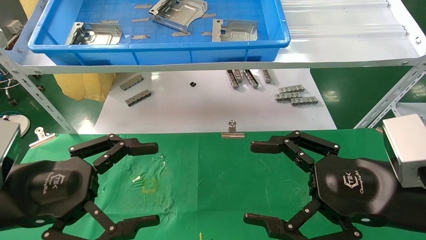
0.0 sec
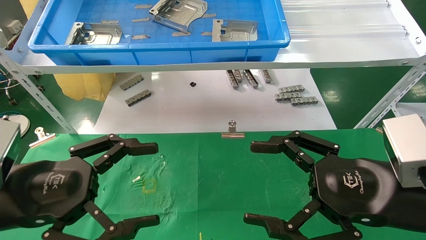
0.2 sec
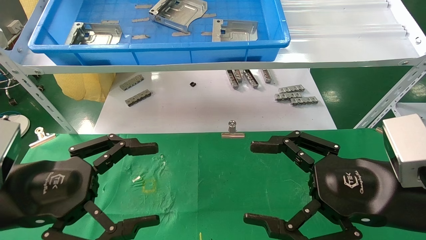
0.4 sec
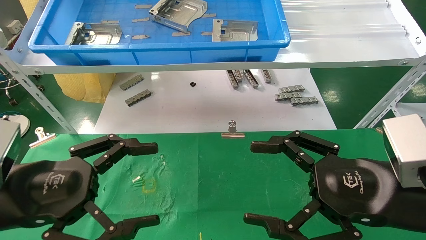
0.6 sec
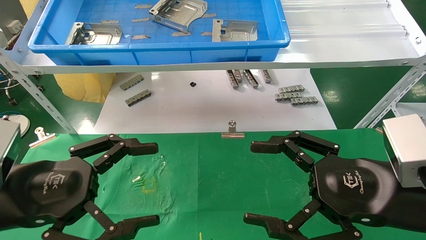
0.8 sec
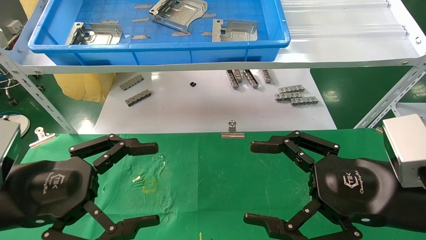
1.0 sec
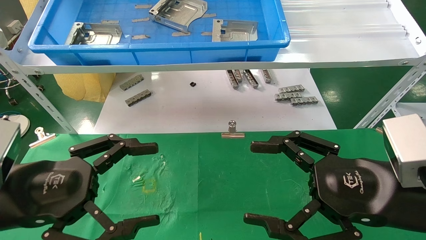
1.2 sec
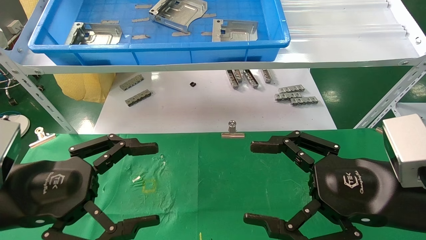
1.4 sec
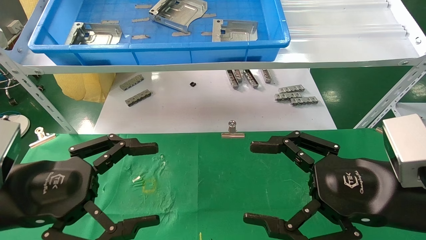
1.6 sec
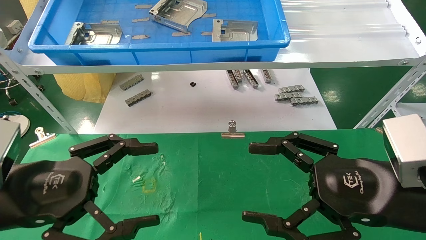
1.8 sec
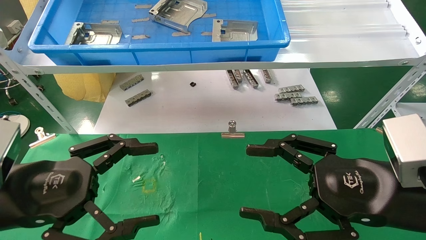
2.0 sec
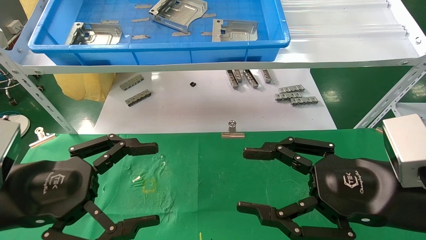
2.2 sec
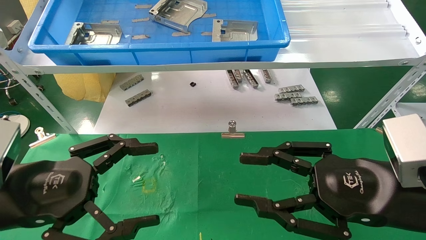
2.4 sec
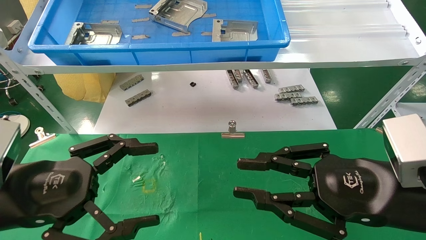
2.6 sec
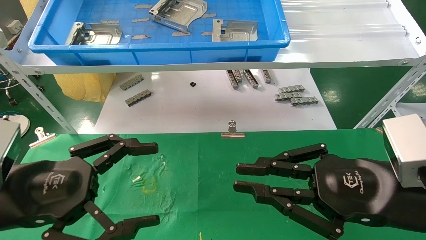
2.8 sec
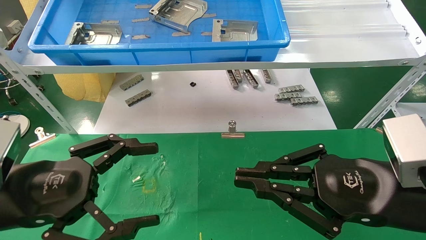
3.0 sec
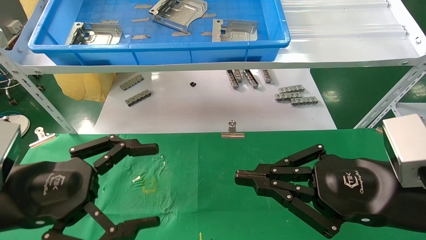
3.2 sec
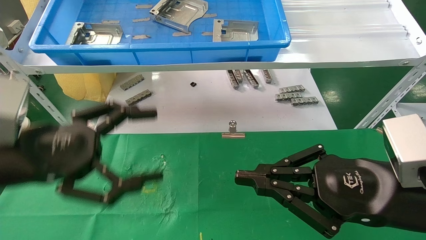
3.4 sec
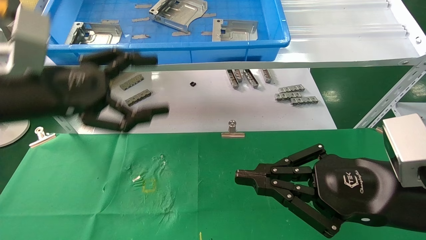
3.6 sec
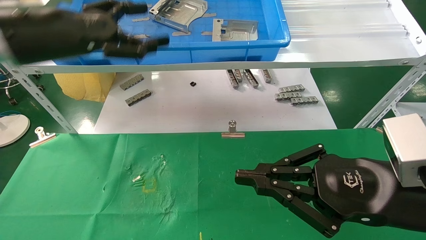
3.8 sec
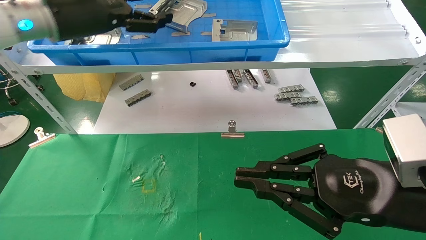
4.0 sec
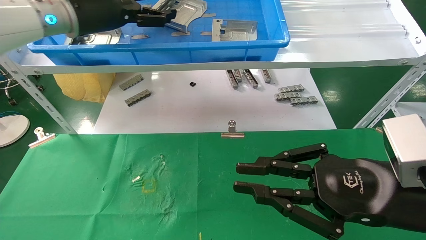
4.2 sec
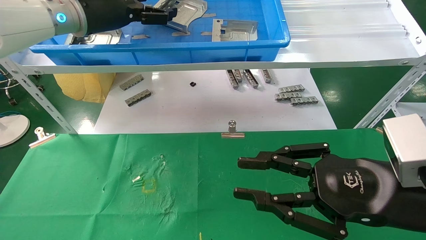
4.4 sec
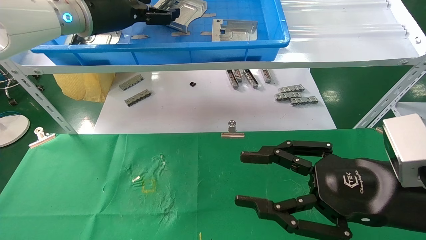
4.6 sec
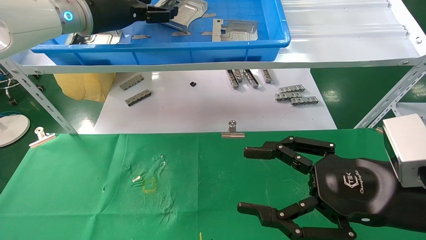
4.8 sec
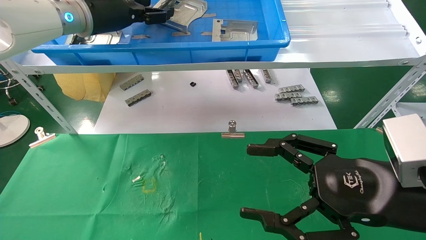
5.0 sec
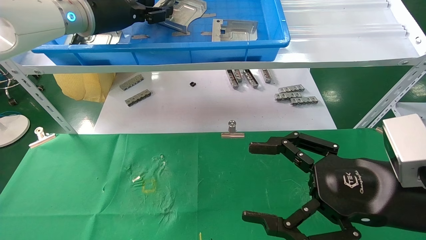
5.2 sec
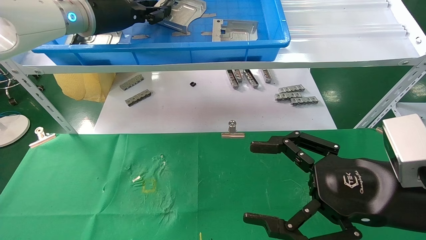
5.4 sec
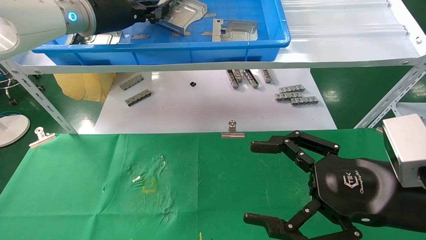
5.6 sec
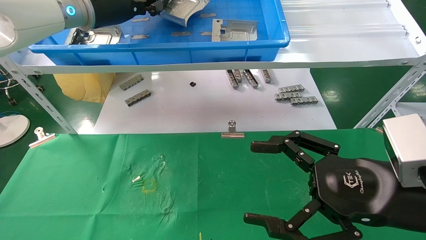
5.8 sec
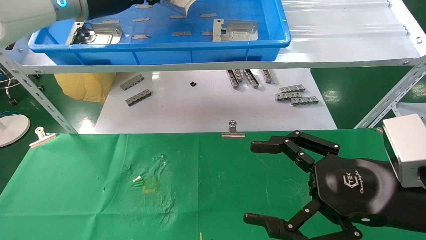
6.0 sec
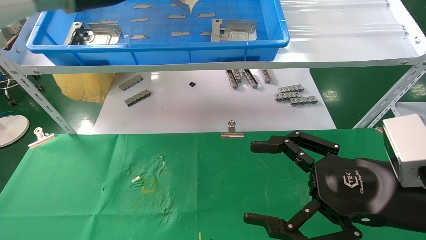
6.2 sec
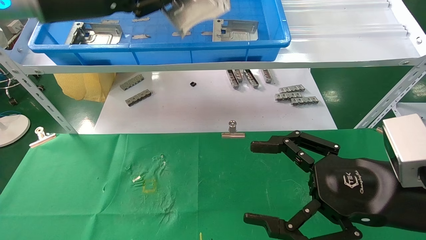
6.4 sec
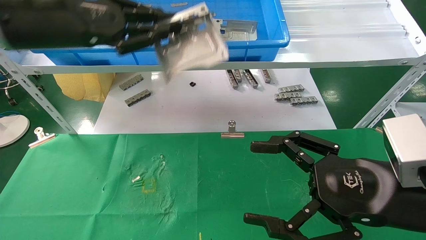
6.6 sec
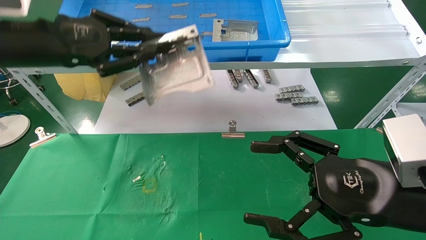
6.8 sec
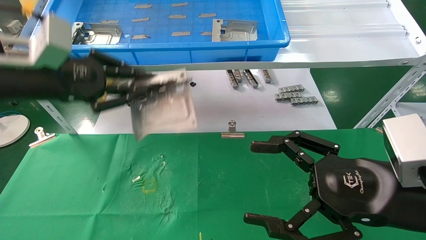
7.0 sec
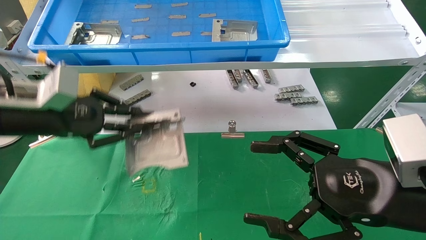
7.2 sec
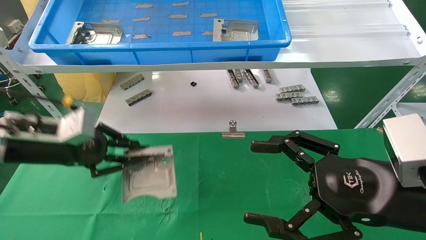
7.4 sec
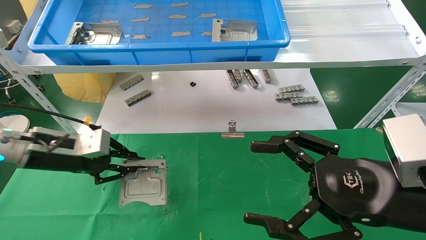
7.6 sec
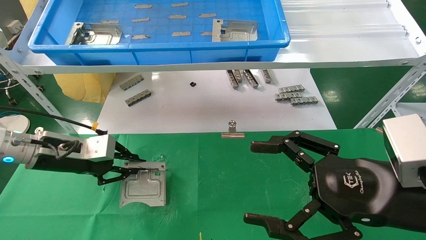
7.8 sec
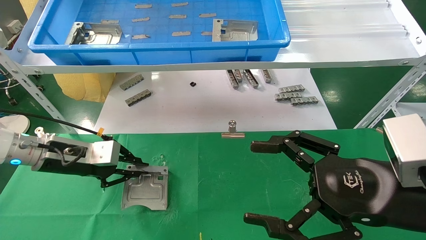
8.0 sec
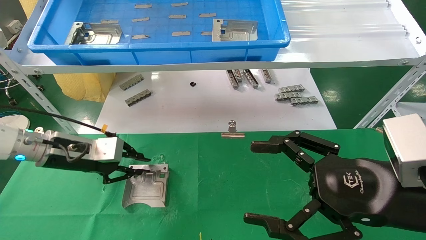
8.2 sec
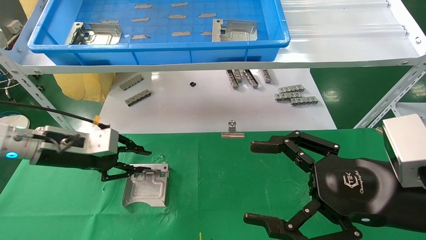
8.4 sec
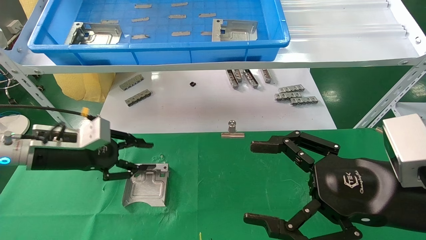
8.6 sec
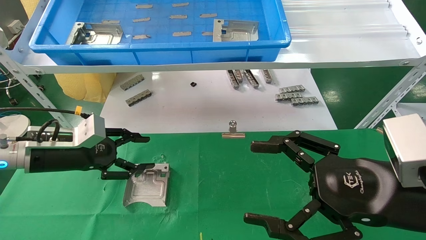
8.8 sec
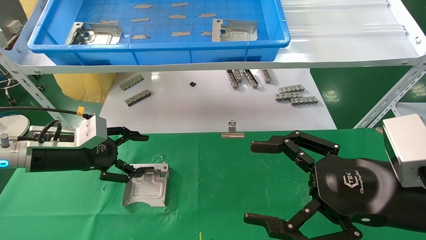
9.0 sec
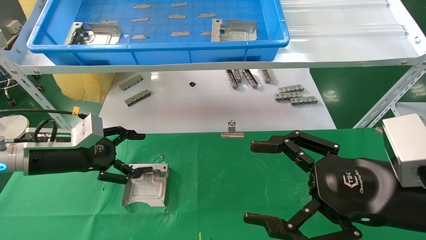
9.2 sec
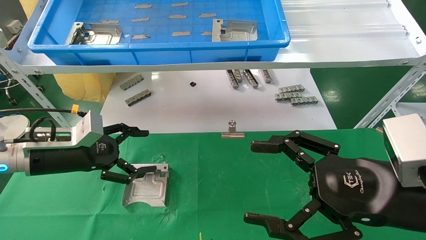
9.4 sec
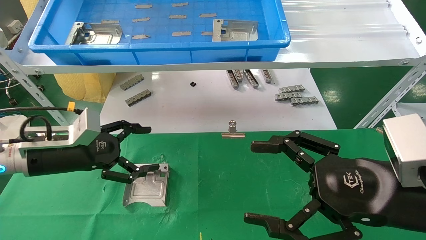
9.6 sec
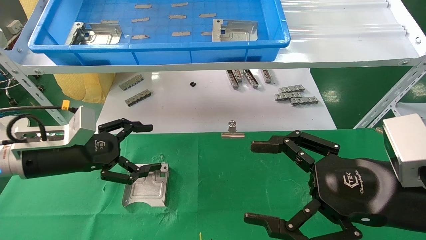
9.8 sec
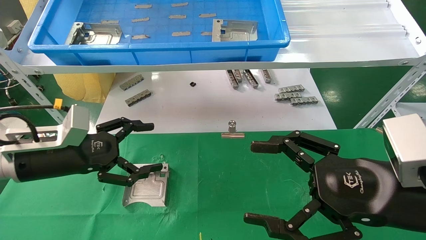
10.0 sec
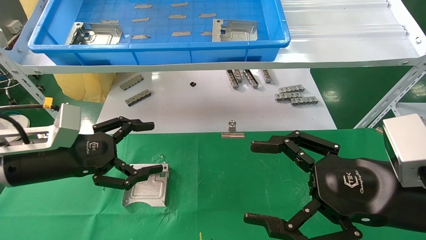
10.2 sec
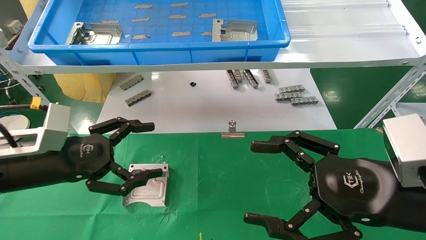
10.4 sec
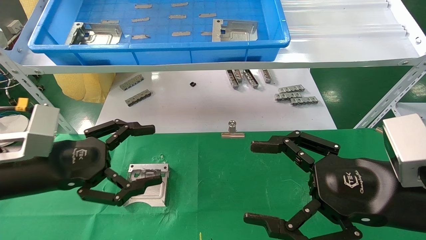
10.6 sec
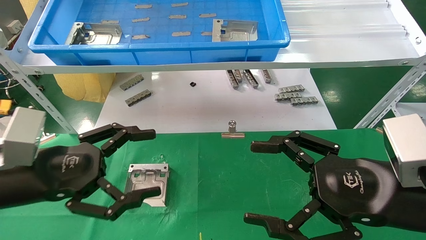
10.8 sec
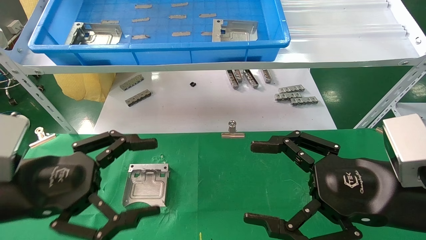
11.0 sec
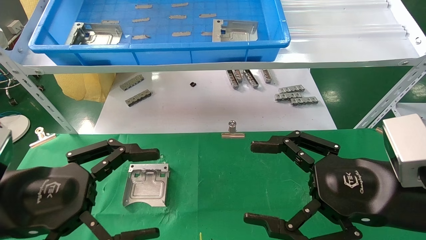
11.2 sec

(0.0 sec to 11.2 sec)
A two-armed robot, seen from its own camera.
Task of the whole recording: use the mechanical arm to pick up the parts and place them on the table.
Step, 3.6 sec - 5.6 sec: Pick up the hard drive bracket from the feeding area.
Step, 5.8 sec - 8.2 sec: Place the hard drive bracket into the box.
0.0 sec - 1.6 sec: Neither gripper changes place.
1.6 sec - 3.2 sec: The right gripper closes its fingers.
3.2 sec - 4.8 sec: The right gripper opens up. The left gripper goes approximately 30 cm forward and upward.
4.8 sec - 6.4 sec: The right gripper opens. Meanwhile the left gripper heads backward, covering roughly 10 cm, and closes up.
6.4 sec - 8.0 sec: The left gripper shifts about 25 cm downward.
8.0 sec - 9.6 sec: The left gripper opens.
9.6 sec - 11.2 sec: The left gripper shifts approximately 15 cm backward.

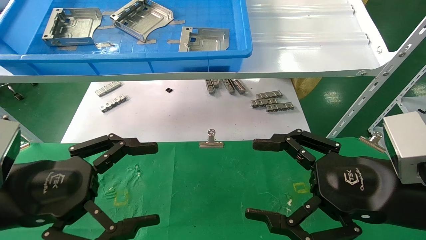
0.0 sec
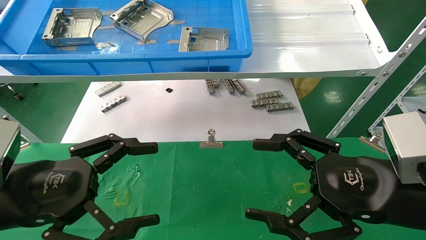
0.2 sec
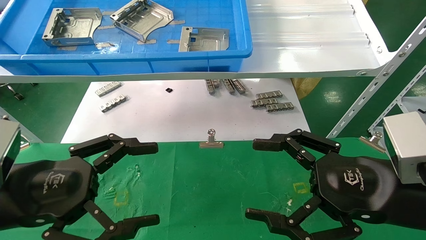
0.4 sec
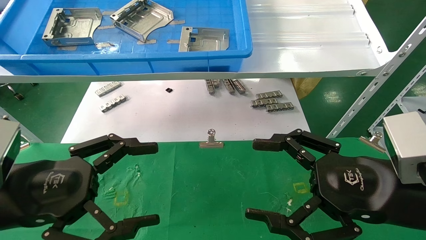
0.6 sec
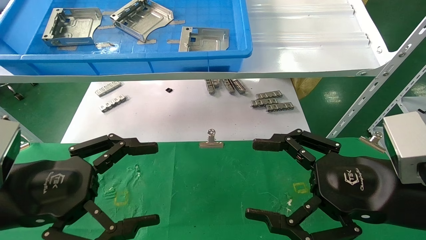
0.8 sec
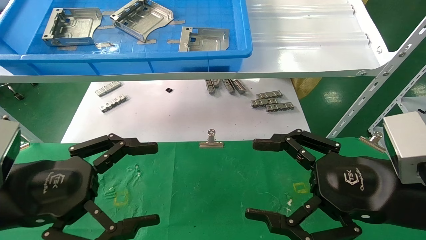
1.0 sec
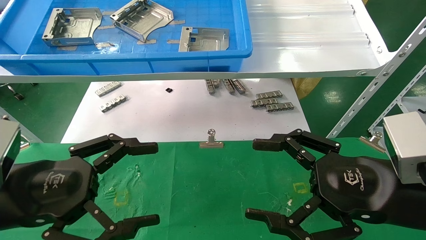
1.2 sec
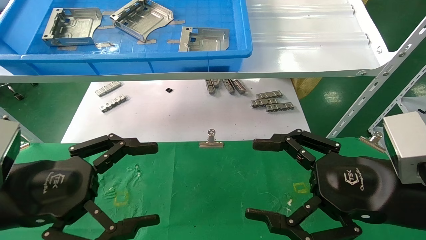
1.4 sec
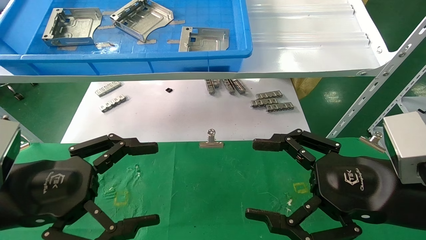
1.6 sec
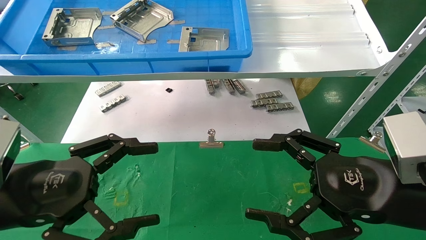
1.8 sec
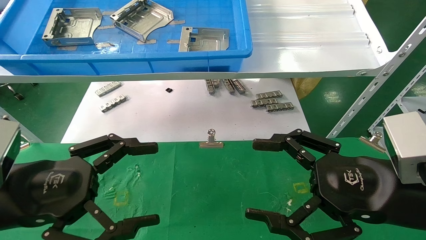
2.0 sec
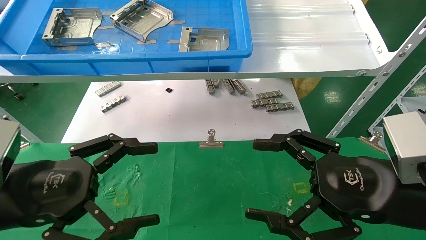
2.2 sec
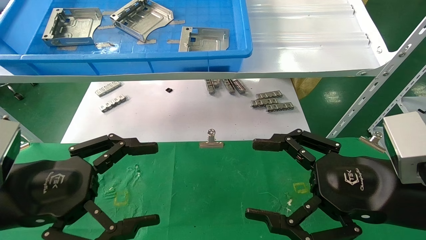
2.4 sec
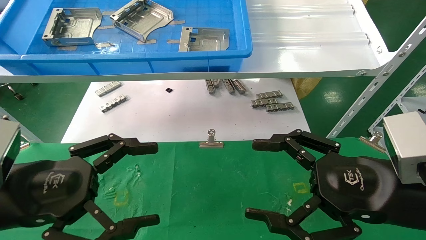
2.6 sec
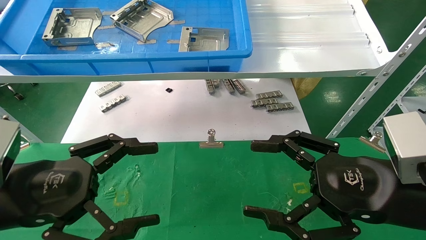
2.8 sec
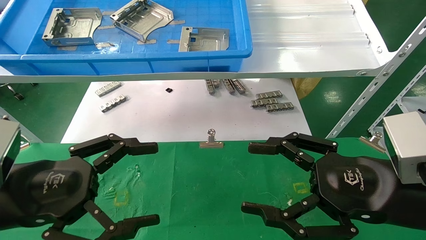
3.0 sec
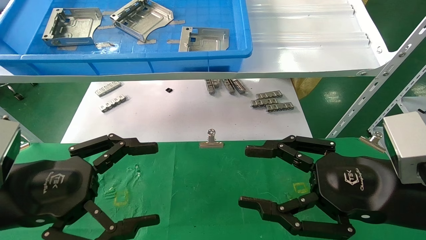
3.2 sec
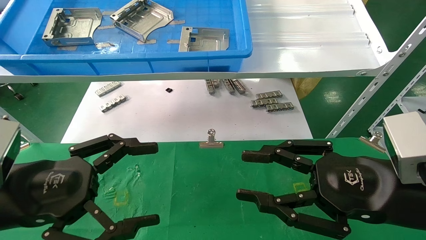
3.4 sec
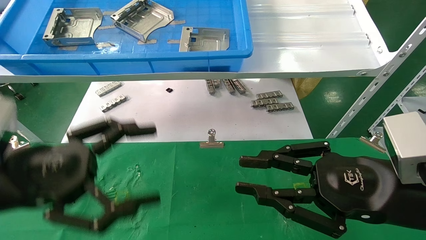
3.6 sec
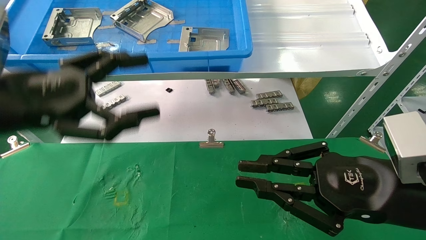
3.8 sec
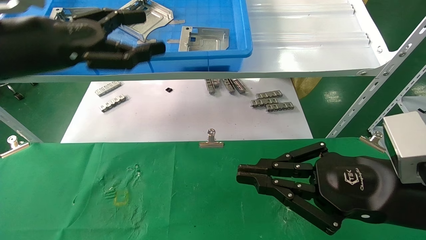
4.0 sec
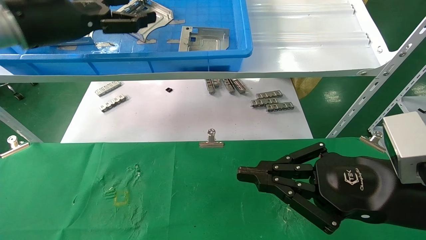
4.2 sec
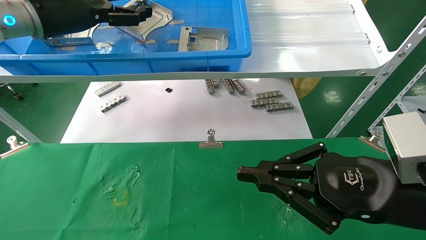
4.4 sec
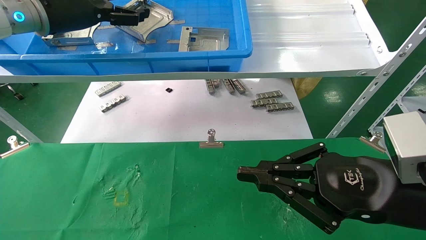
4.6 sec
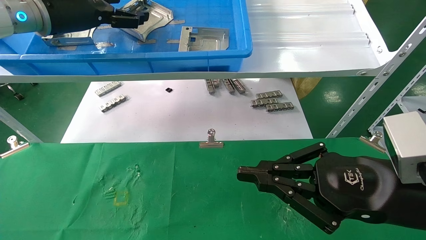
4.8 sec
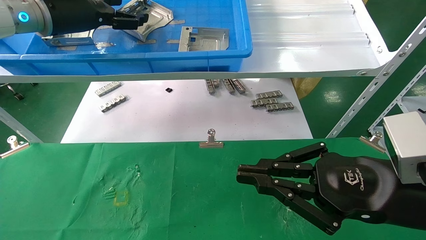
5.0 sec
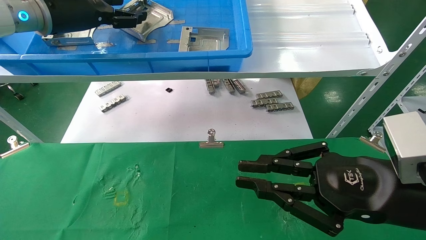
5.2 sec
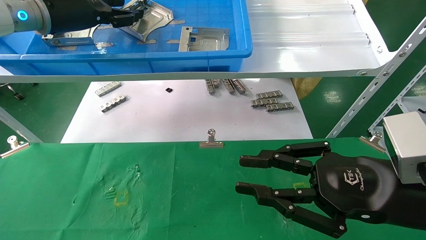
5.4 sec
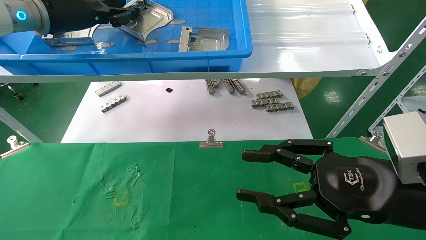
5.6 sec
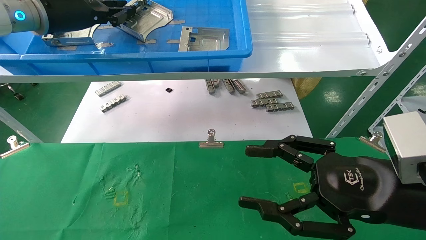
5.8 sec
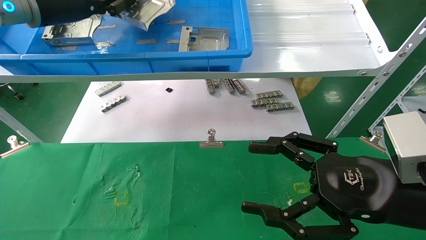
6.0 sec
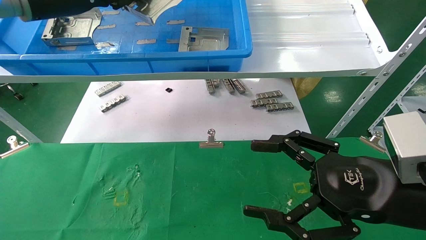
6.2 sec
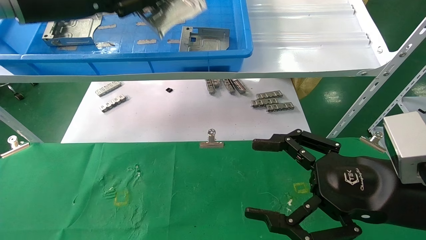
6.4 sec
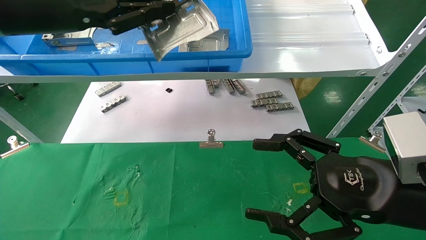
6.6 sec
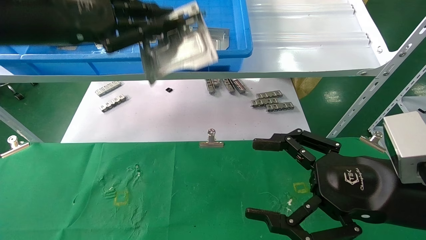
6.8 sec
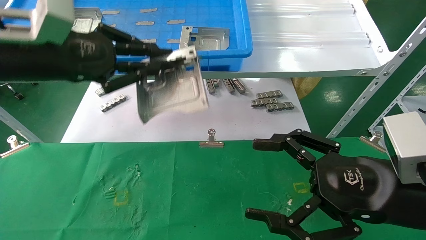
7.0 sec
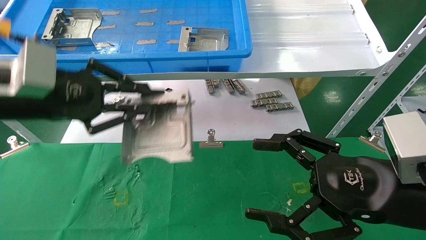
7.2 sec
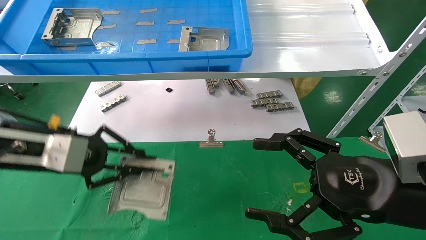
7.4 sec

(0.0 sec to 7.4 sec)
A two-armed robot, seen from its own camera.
Task of the whole recording: use the mechanical arm to pick up the parts and place them on the table.
Step, 4.0 sec - 6.0 sec: Pick up the hard drive bracket from the feeding area.
0.0 sec - 3.0 sec: Both grippers stay about where they are.
3.0 sec - 4.4 sec: The left gripper is displaced upward and forward by some 30 cm, while the right gripper closes up.
4.4 sec - 6.0 sec: The right gripper opens. The left gripper closes up.
6.0 sec - 7.4 sec: The left gripper moves downward and backward, about 20 cm.
